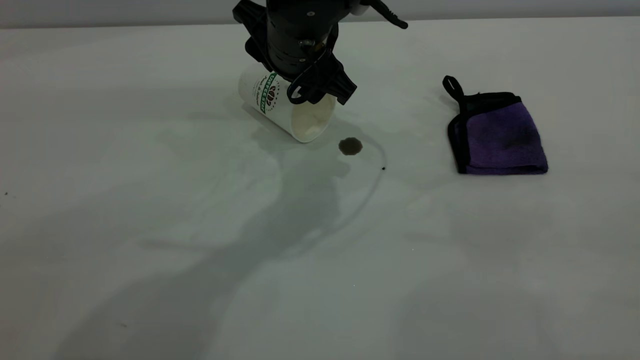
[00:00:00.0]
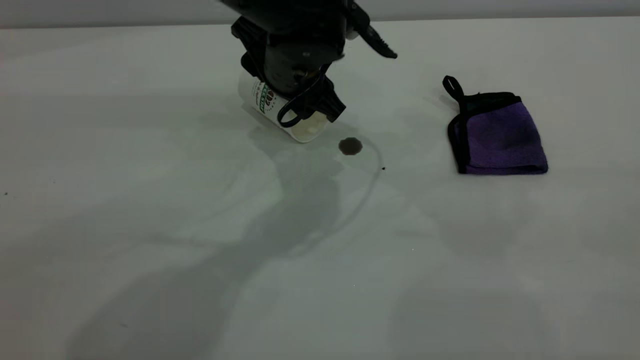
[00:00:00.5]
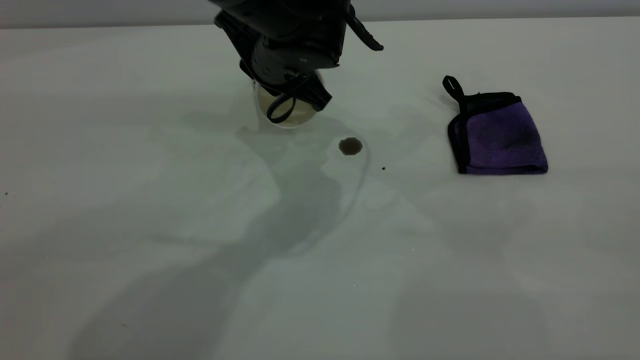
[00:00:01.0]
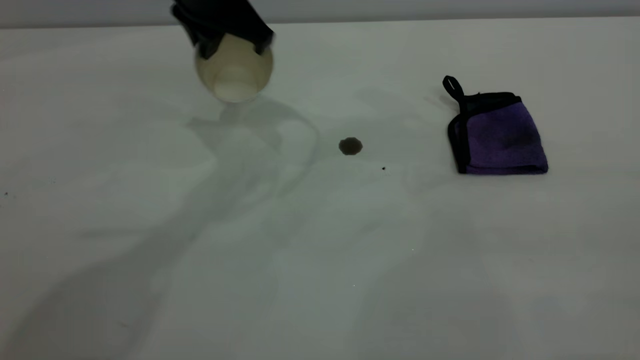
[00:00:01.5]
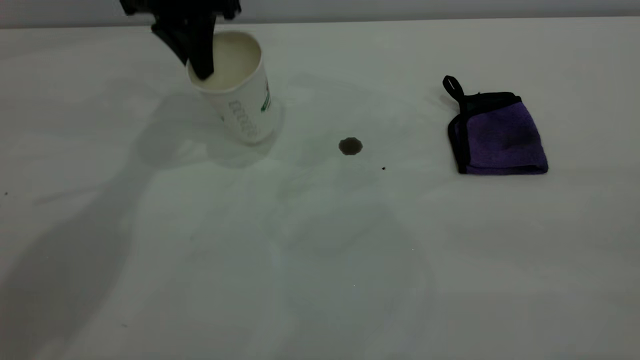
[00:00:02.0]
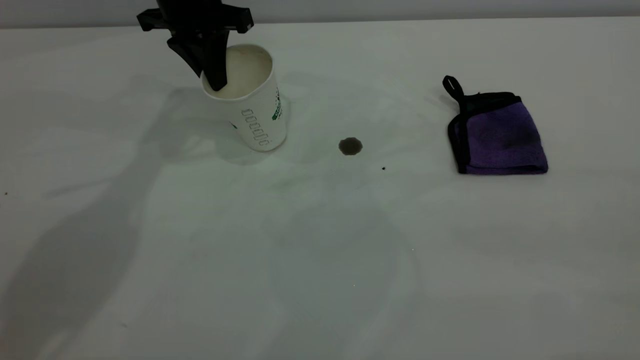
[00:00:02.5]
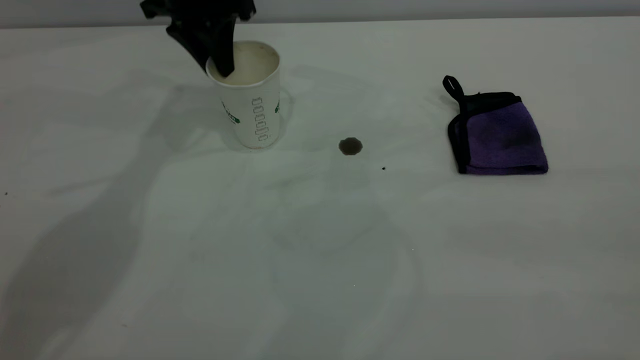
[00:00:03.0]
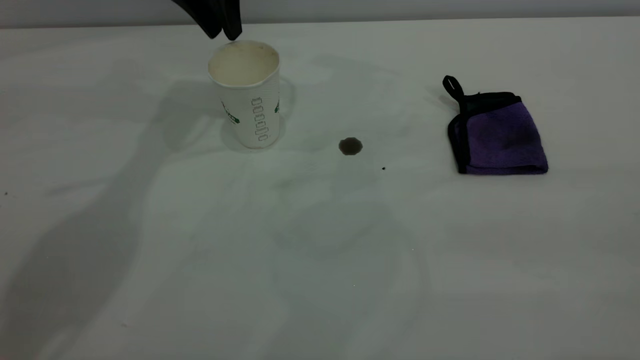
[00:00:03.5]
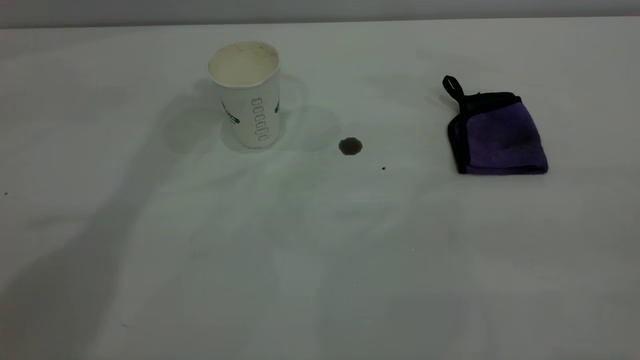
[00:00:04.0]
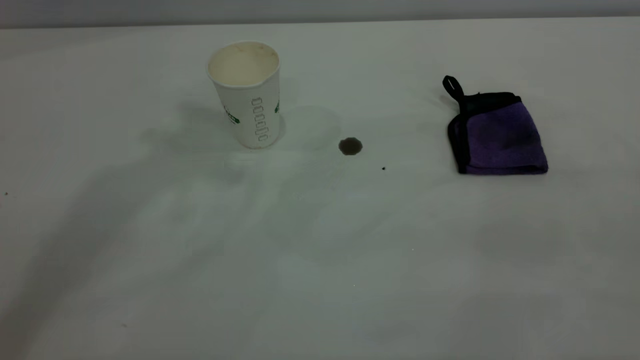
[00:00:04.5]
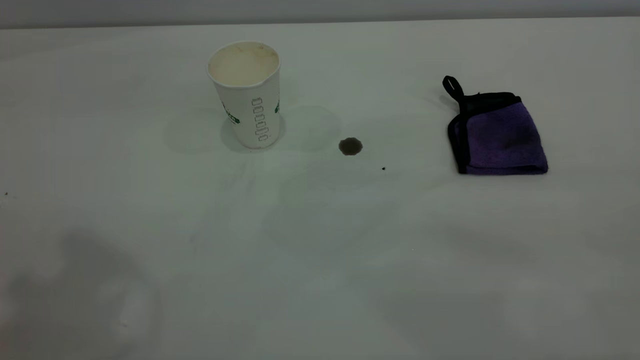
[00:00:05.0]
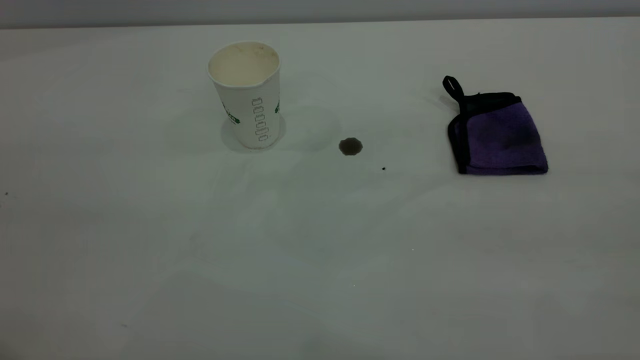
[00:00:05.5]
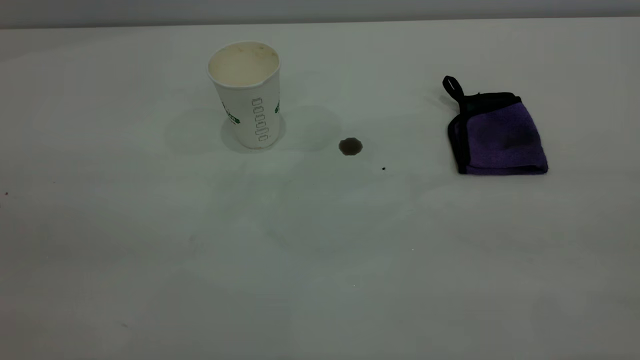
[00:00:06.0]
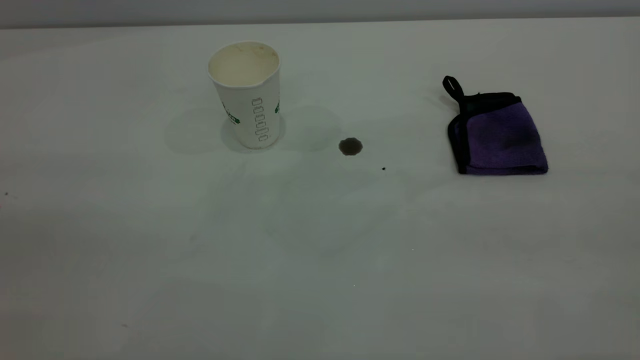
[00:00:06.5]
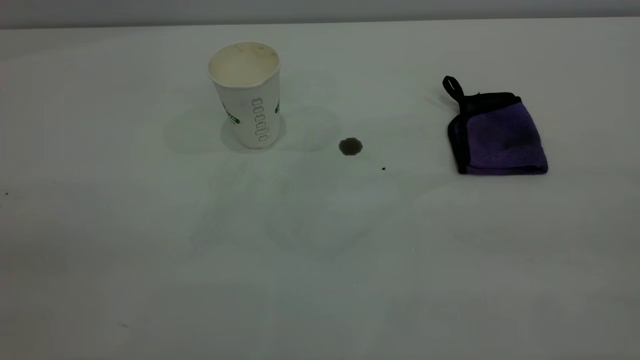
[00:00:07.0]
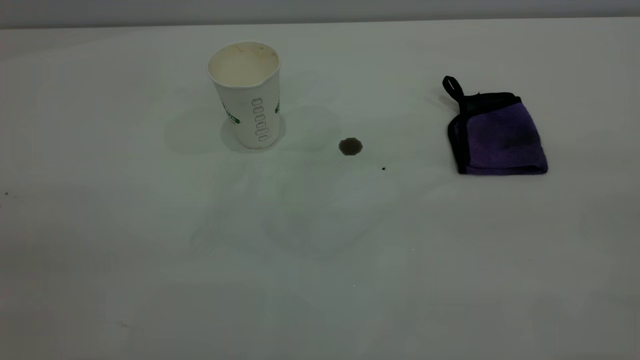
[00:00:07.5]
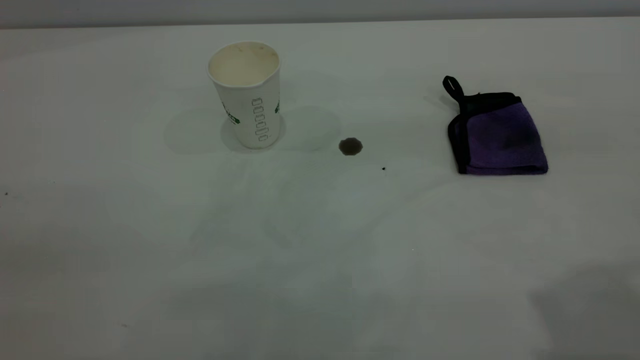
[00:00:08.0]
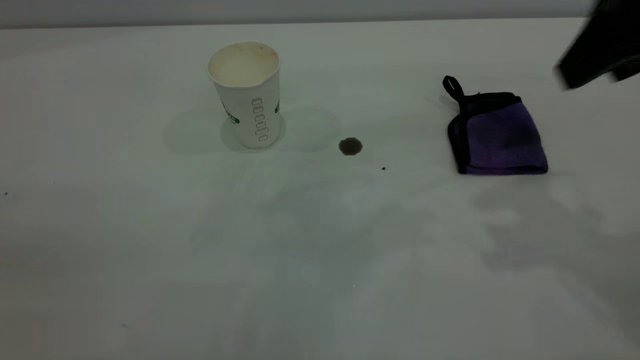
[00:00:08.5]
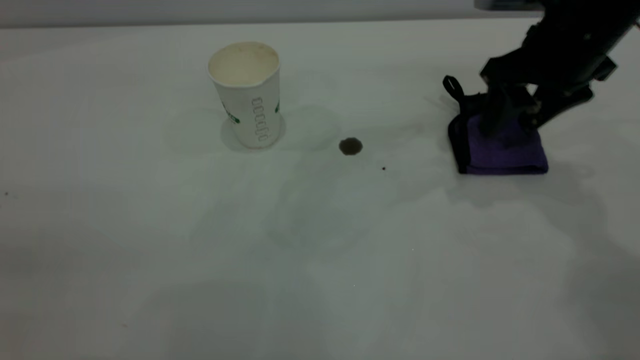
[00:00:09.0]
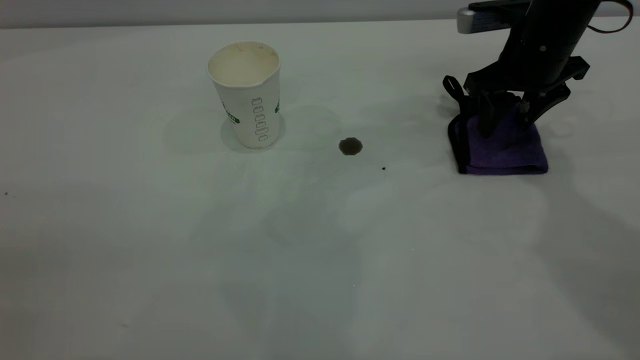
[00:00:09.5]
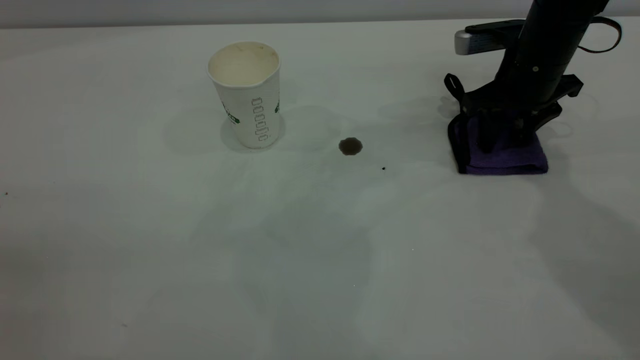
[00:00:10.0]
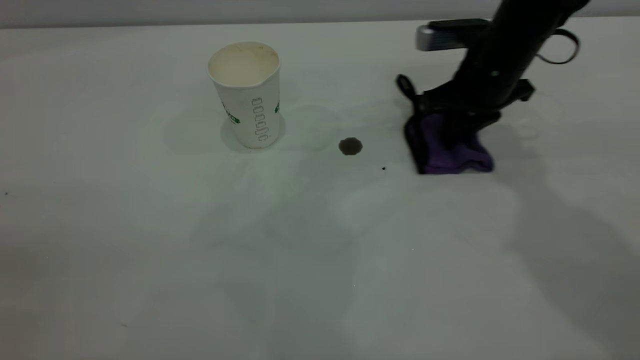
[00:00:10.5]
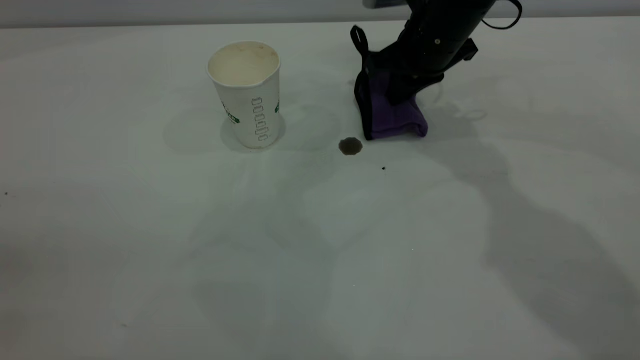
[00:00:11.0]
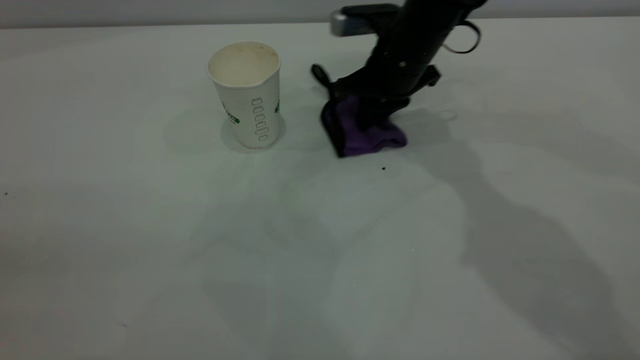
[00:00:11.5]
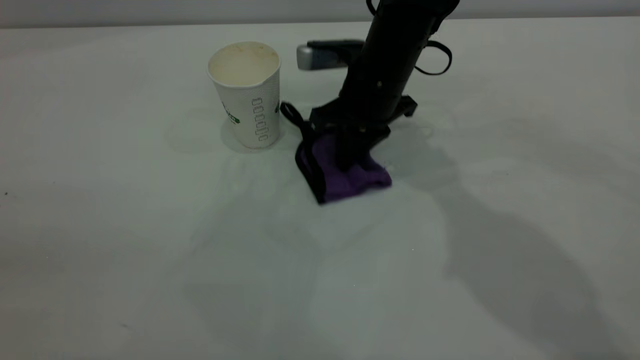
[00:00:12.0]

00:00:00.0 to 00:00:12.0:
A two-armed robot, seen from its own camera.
Task of the whole recording: the left gripper pick up the fallen cup and place it upright, the right gripper grasp the purple rag and wipe the coffee stain on the table, the right gripper put the purple rag back in its original position.
Step, 00:00:00.0 to 00:00:03.0: Stand the paper cup upright.
00:00:00.0 to 00:00:02.0: The left gripper goes roughly 15 cm to the left and forward, and closes.
00:00:02.0 to 00:00:04.0: The left gripper goes some 20 cm upward, and opens up.
00:00:08.0 to 00:00:10.0: The right gripper travels downward and forward by about 40 cm.
00:00:10.0 to 00:00:12.0: The right gripper travels to the left by approximately 15 cm, and closes its fingers.

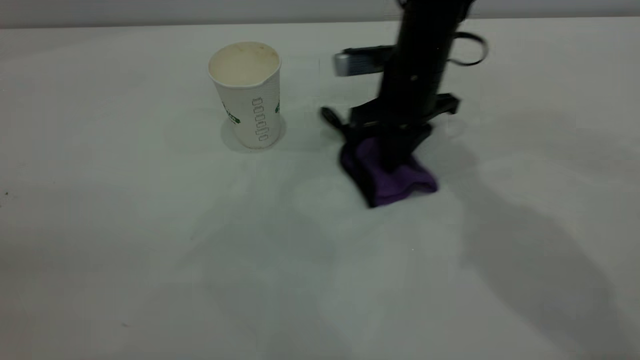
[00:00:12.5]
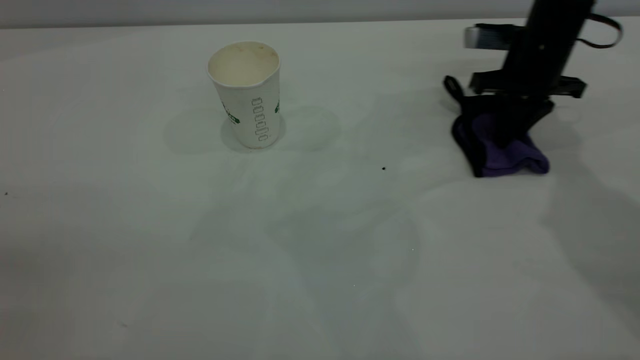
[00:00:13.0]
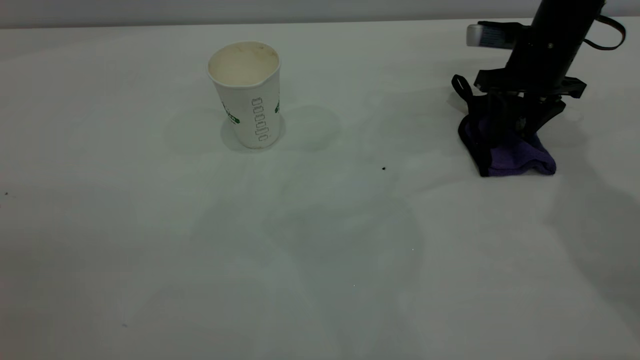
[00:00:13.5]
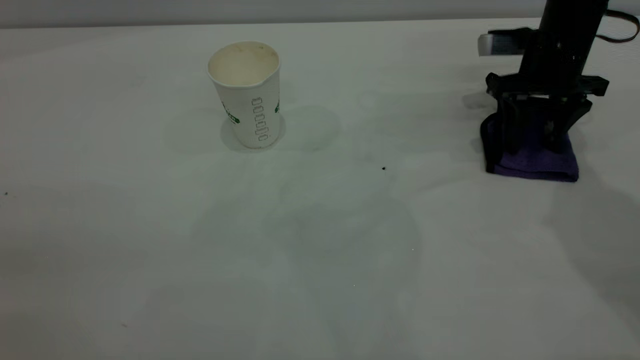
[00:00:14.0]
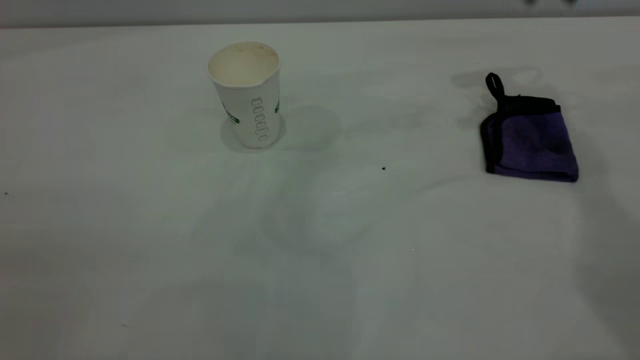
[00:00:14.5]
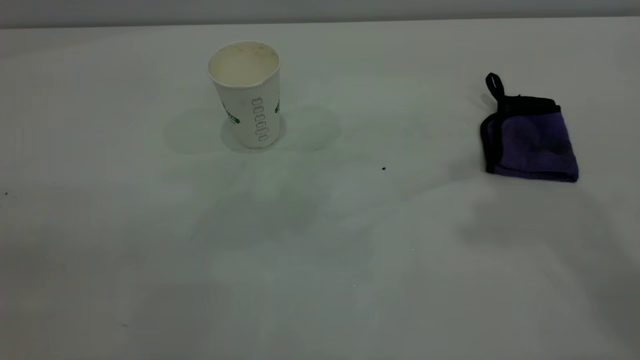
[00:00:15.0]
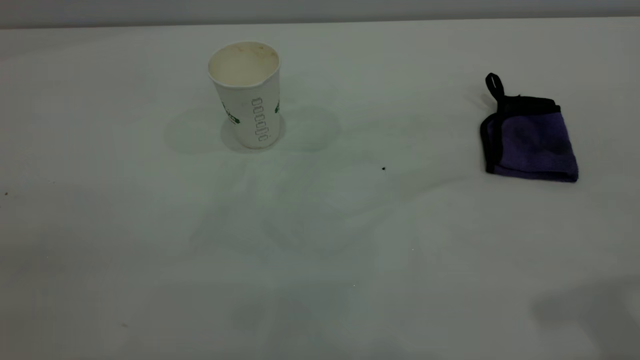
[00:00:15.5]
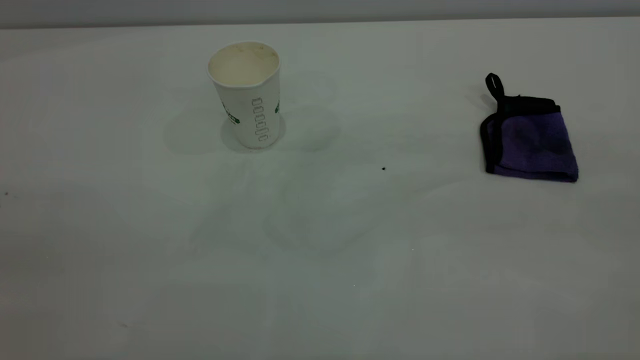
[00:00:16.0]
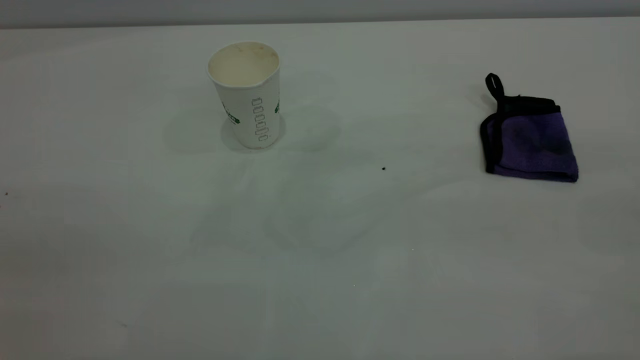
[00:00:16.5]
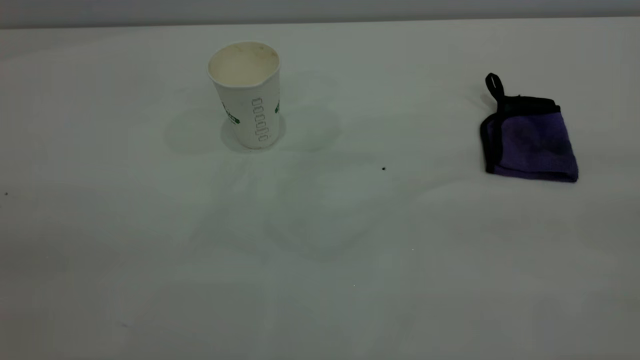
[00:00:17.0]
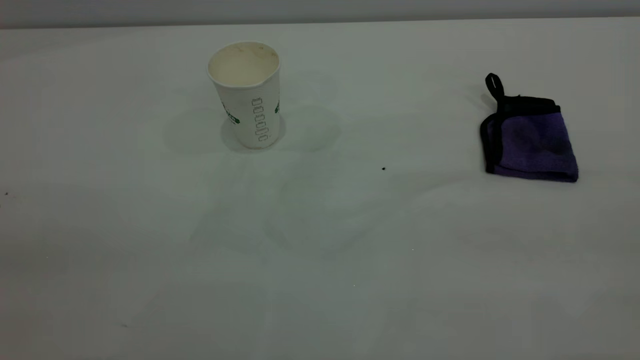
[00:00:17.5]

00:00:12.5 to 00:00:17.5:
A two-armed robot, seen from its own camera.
Task of the whole recording: the left gripper pick up the fallen cup and place it upright, the right gripper grasp the purple rag and wipe the coffee stain on the table, the right gripper put the purple rag back in its original position.
00:00:12.5 to 00:00:15.0: The right gripper goes some 35 cm upward and backward, and opens up.

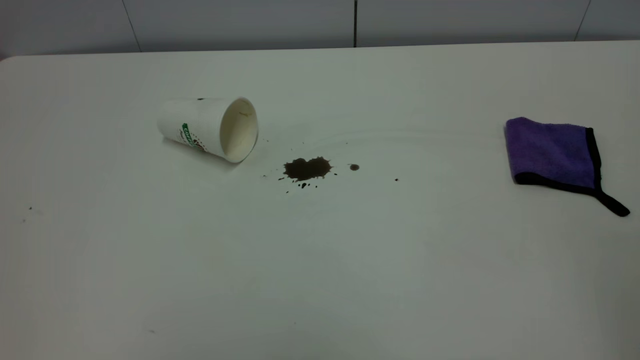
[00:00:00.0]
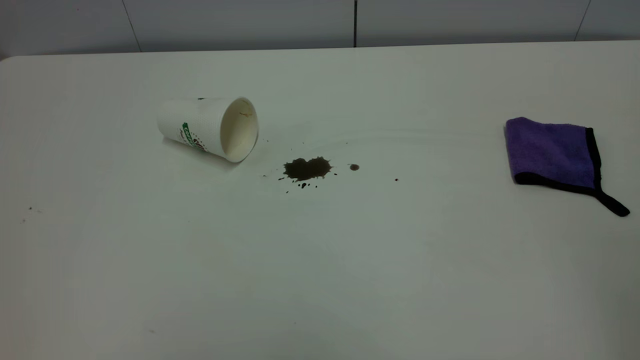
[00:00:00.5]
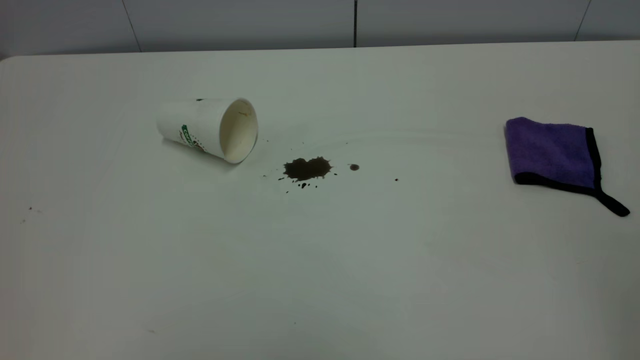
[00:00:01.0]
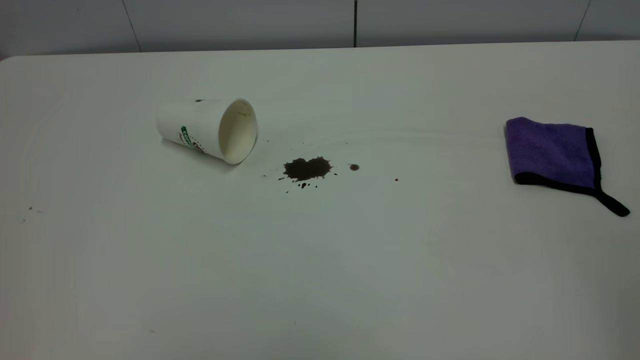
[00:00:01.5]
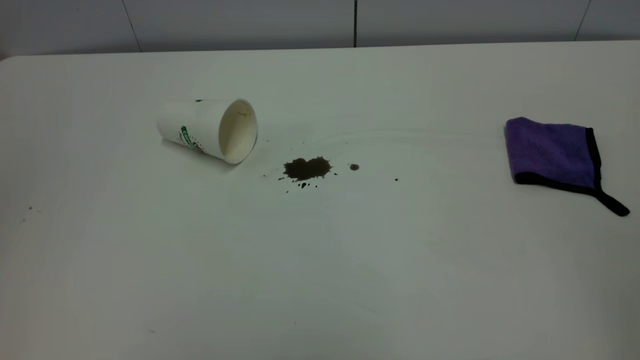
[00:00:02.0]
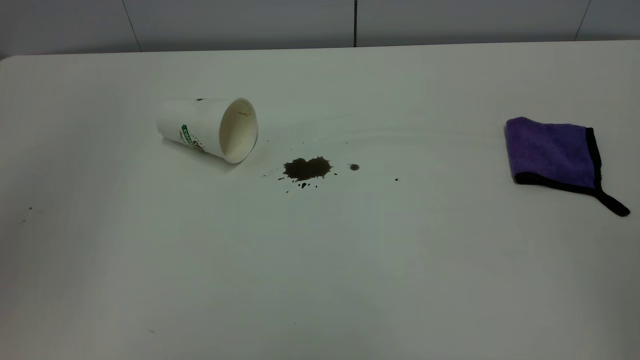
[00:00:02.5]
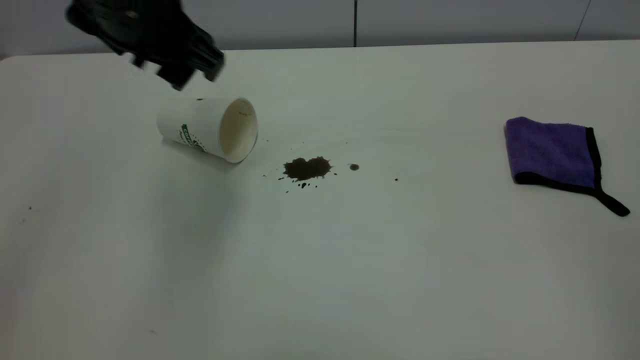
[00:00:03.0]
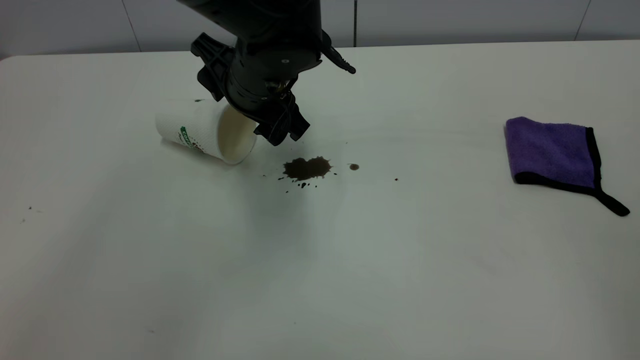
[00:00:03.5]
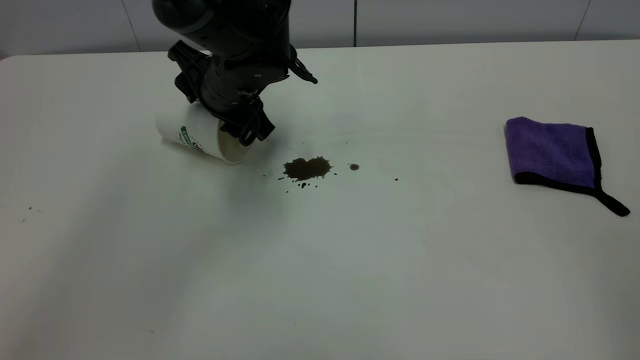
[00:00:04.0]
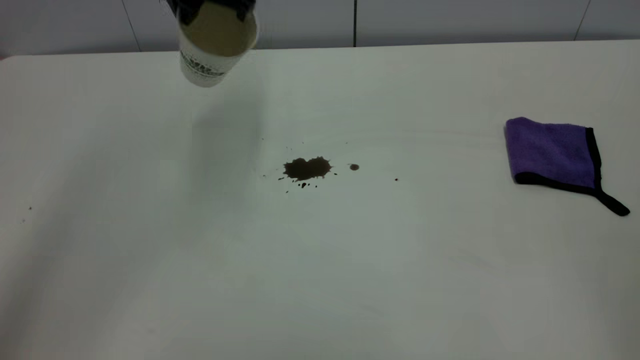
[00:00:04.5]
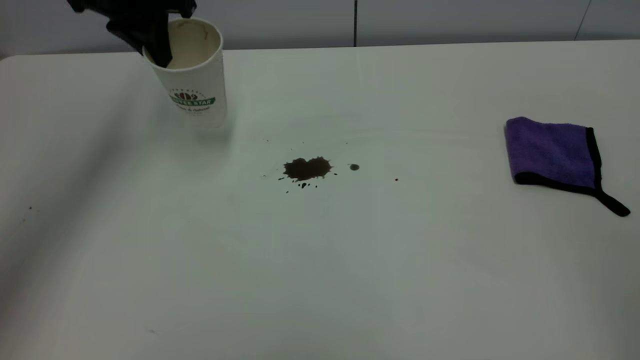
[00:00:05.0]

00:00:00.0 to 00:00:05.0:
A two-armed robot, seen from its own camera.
Task of the whole recording: the left gripper pick up the fallen cup and place it upright, the right gripper grasp the purple rag and wipe the coffee stain on the table, the right gripper put the purple rag back in its original position.
00:00:02.5 to 00:00:05.0: The left gripper swings up and down, approximately 25 cm each way, with 2 reversals, and closes.
